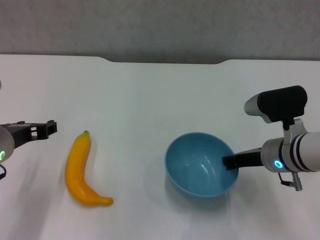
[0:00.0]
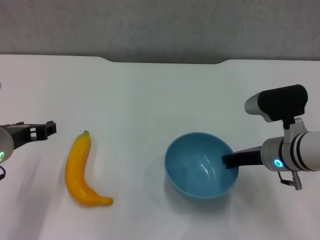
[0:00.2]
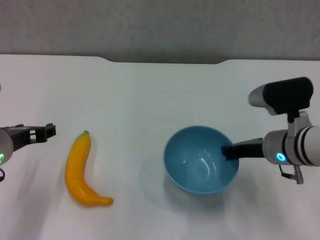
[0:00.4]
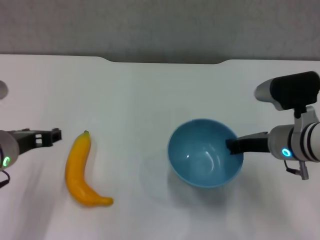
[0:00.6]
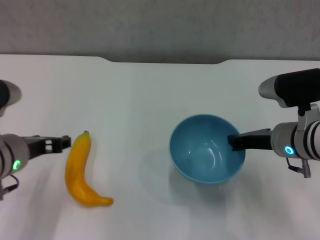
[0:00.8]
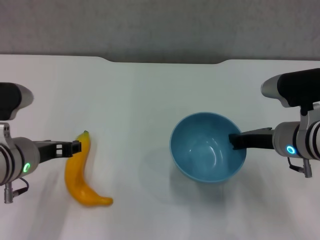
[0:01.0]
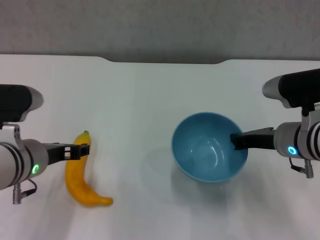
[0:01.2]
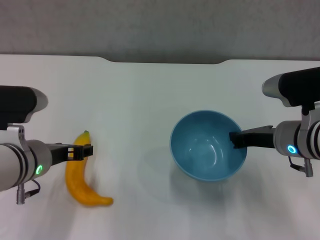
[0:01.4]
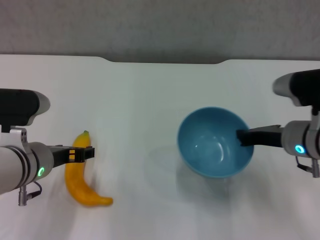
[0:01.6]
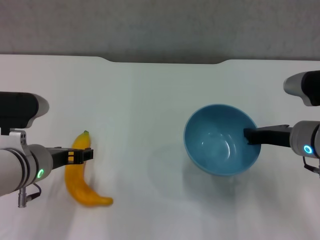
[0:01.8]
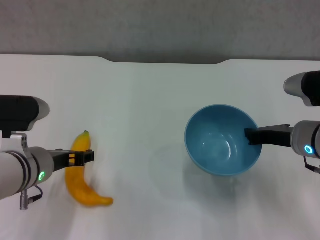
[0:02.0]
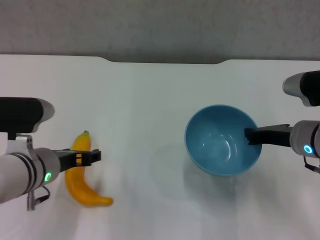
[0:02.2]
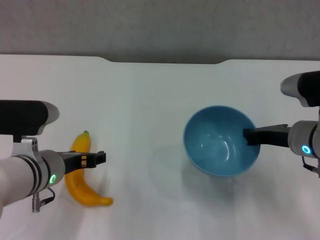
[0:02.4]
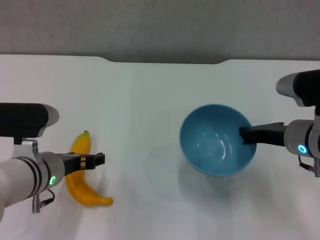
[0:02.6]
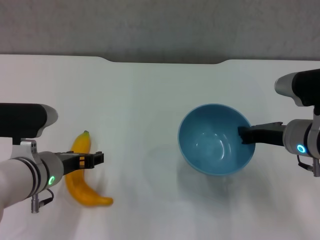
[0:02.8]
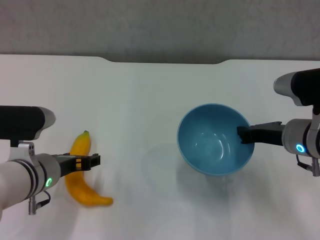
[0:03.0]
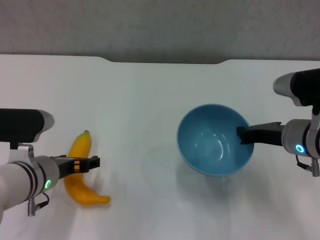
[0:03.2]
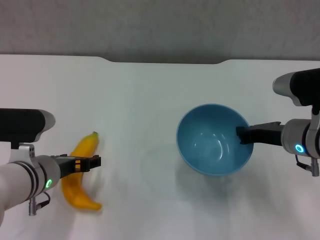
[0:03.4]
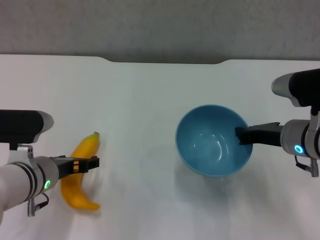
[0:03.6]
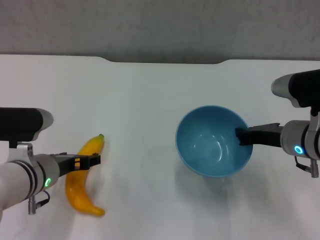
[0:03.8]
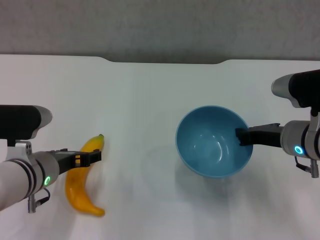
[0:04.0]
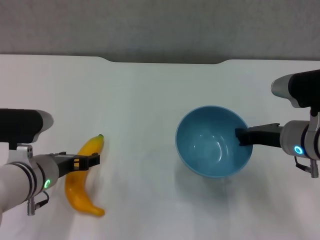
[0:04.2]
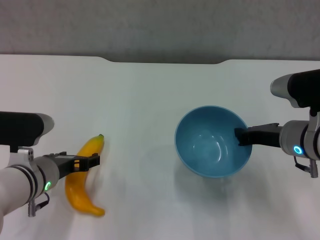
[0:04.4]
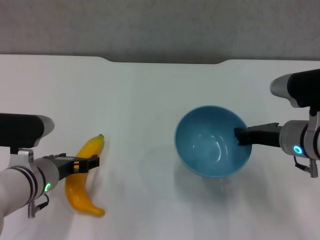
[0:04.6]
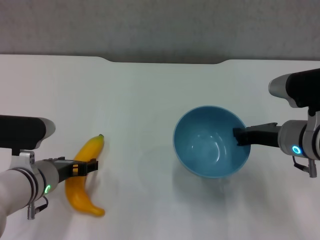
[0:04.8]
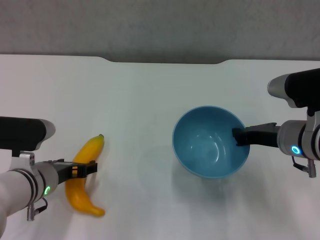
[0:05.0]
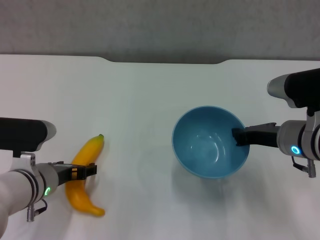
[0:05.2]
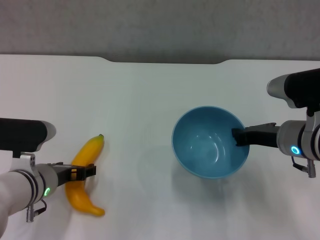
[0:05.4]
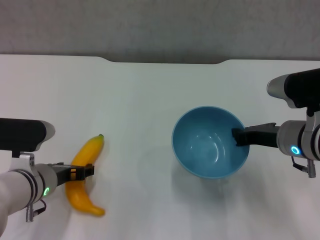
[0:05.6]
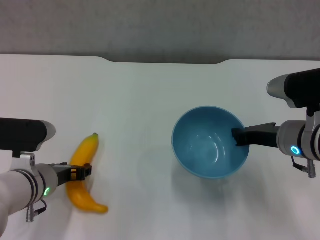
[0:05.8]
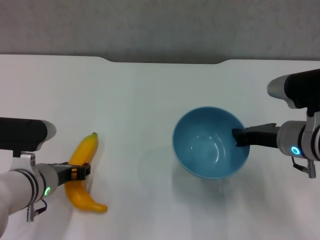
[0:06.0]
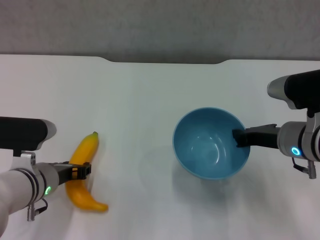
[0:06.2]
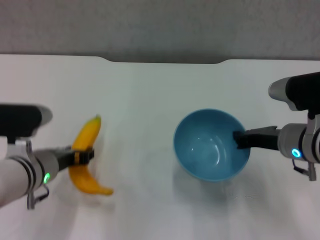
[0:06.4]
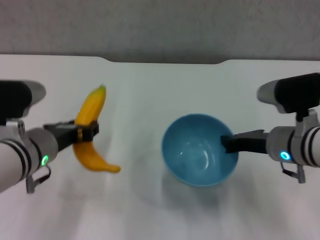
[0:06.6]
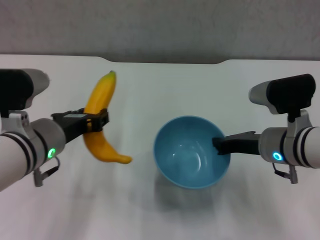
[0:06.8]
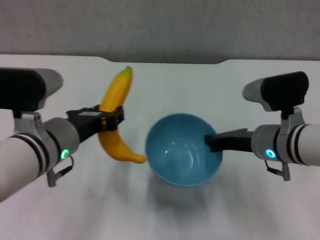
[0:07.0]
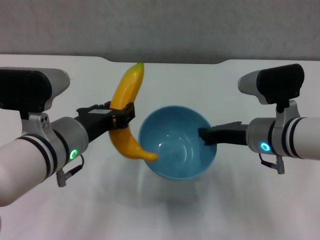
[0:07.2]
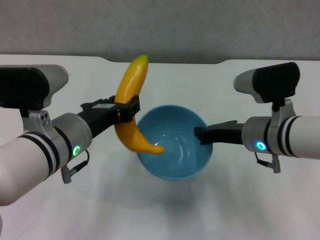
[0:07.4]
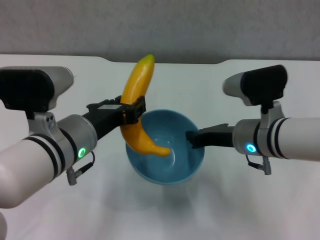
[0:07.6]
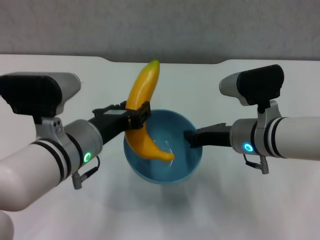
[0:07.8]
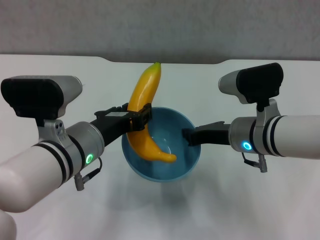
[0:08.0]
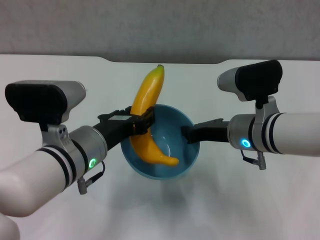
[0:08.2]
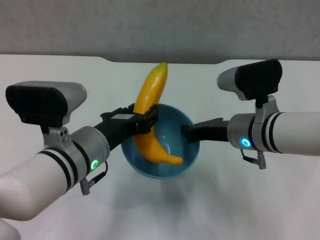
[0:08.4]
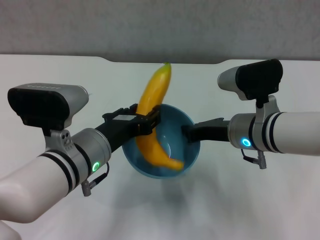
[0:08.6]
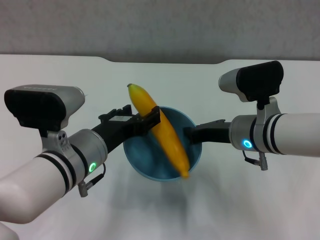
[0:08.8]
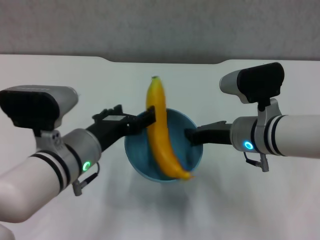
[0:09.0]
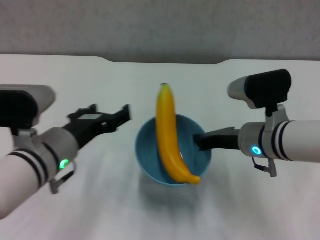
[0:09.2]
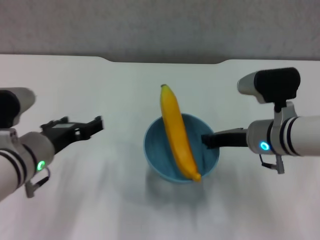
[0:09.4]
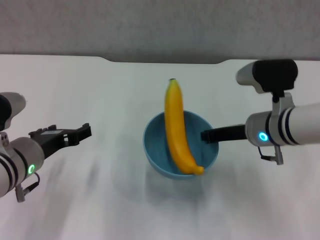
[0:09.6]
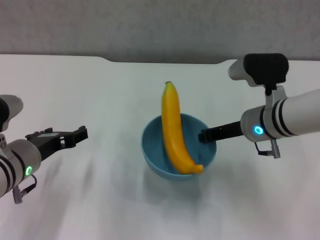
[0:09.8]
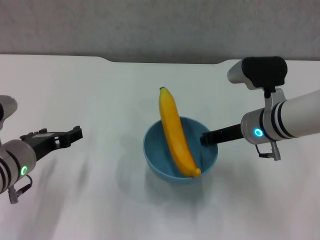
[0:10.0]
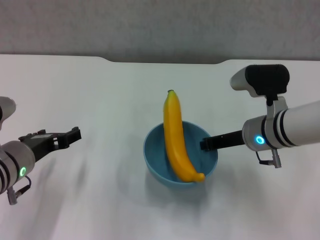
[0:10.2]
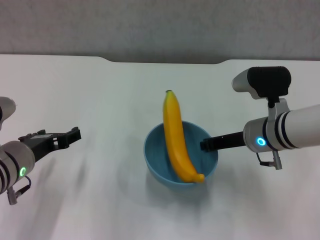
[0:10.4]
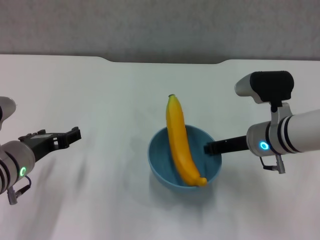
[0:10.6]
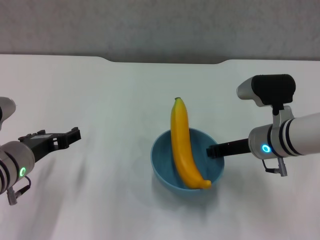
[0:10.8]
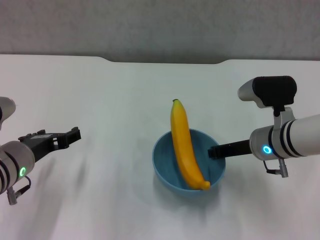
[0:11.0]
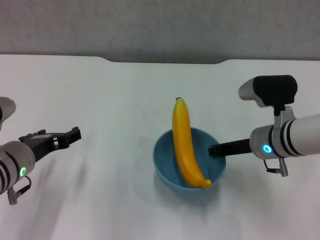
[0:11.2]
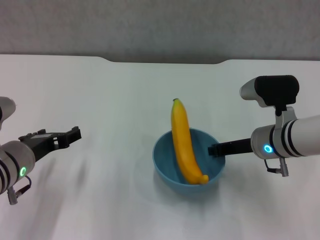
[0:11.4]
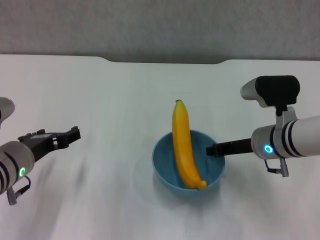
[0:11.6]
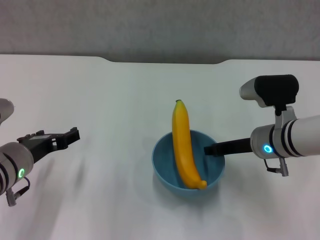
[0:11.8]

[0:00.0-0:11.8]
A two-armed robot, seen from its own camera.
Step, 0:00.4 to 0:01.4: Lift the blue bowl with right gripper.
Step, 0:01.6 to 0:06.0: Grasp the banana with left gripper.
Step, 0:06.2 to 0:08.8: Place the banana in the blue bowl with left gripper.
0:01.4 to 0:04.4: There are only small adjustments of the grippers.
0:04.4 to 0:06.0: The left gripper closes.
0:06.0 to 0:07.4: The left gripper travels upward and to the right by approximately 10 cm.
0:08.8 to 0:10.4: The left gripper moves to the left, approximately 10 cm, and opens.
0:10.4 to 0:11.8: The grippers stay close to where they were, moving slightly.

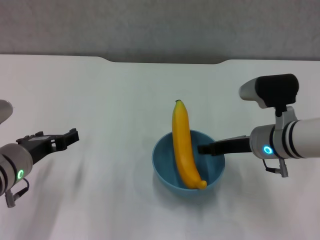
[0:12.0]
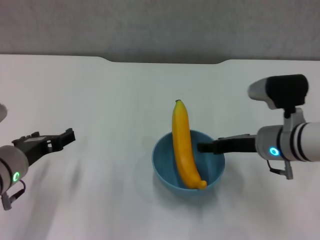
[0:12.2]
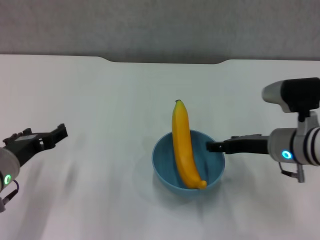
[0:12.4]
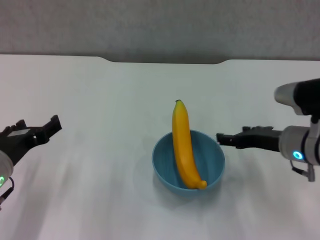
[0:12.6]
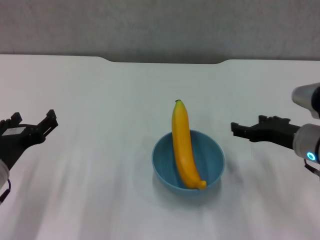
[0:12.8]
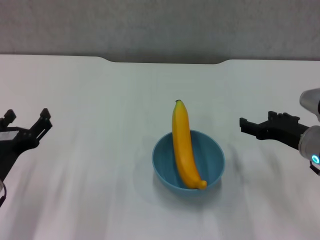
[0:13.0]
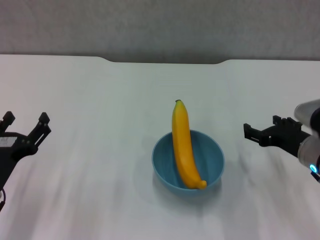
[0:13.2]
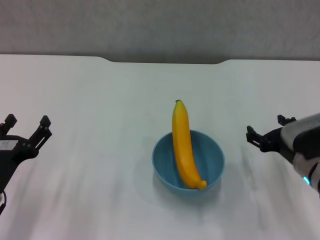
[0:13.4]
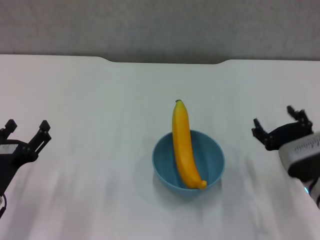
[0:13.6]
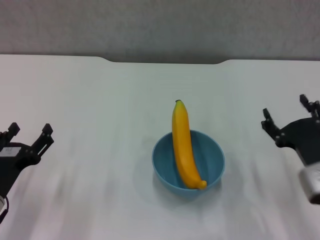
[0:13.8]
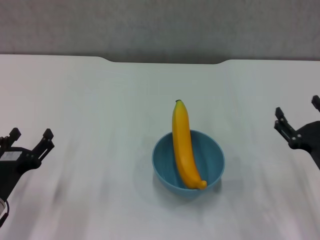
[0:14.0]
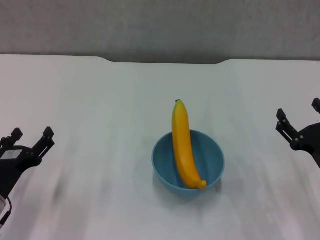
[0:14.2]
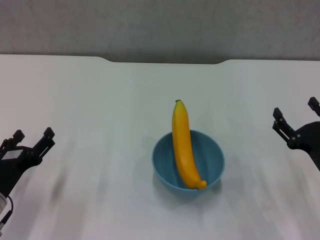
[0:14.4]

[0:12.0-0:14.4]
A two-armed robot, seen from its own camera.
0:12.0 to 0:13.2: The right gripper travels to the right by about 5 cm, and opens. Meanwhile the left gripper moves backward, some 5 cm.
0:13.2 to 0:14.4: The right gripper moves backward, about 5 cm.
